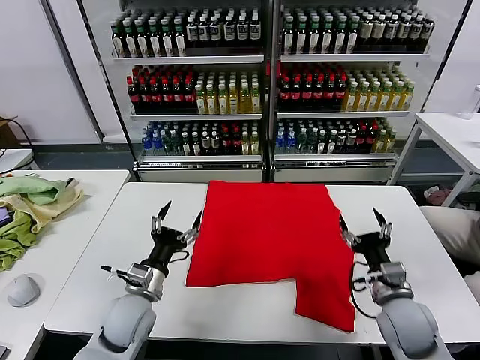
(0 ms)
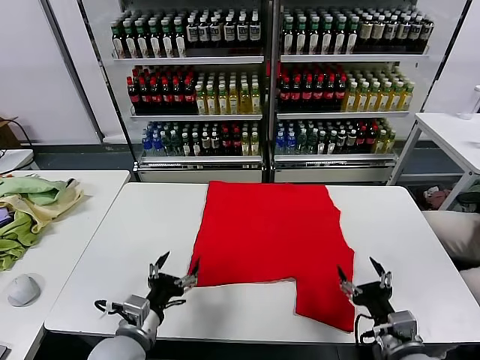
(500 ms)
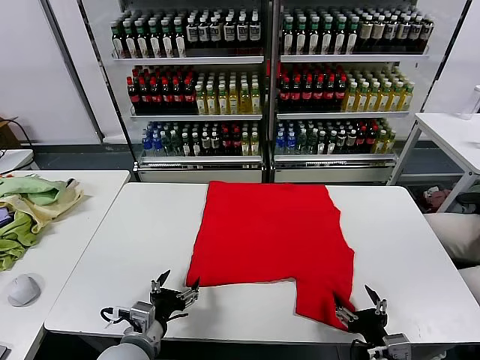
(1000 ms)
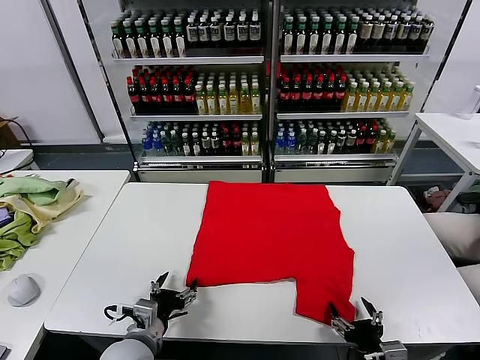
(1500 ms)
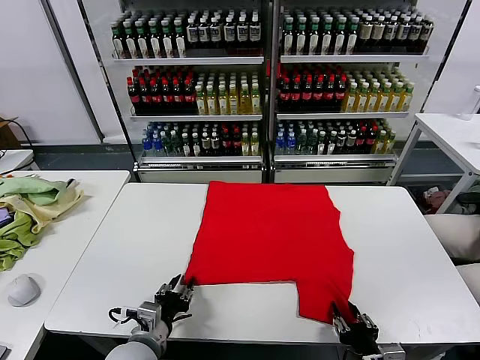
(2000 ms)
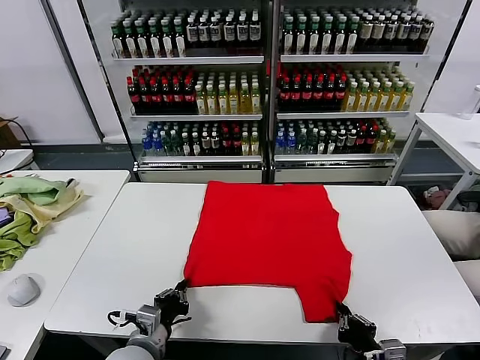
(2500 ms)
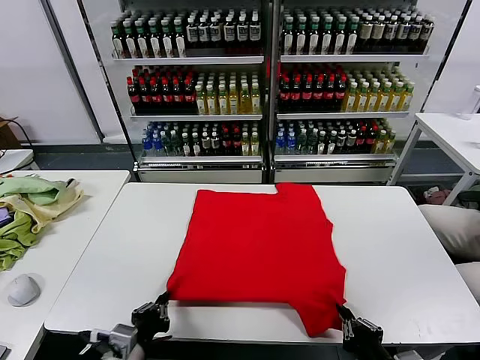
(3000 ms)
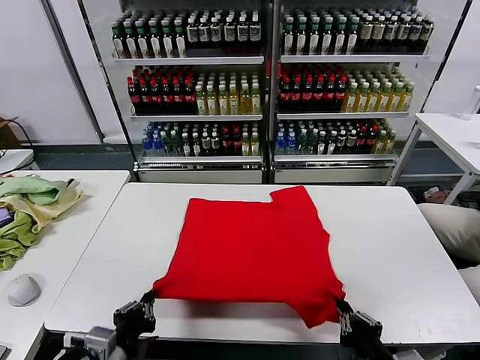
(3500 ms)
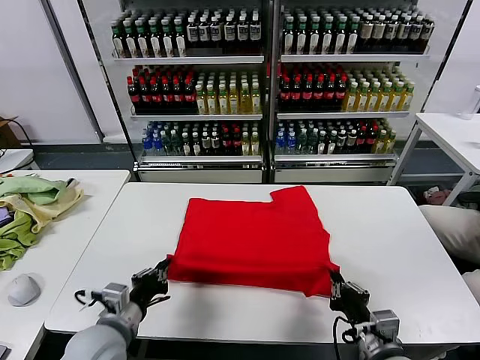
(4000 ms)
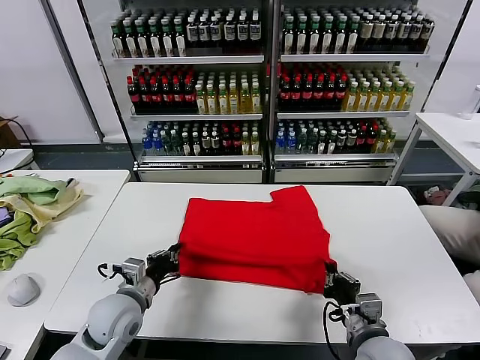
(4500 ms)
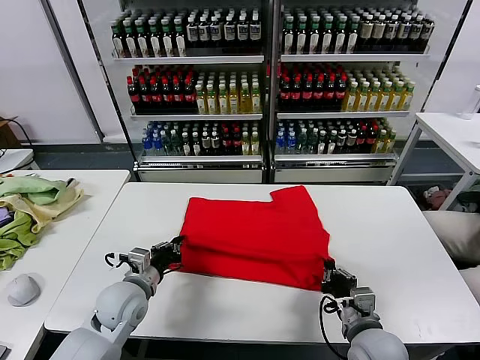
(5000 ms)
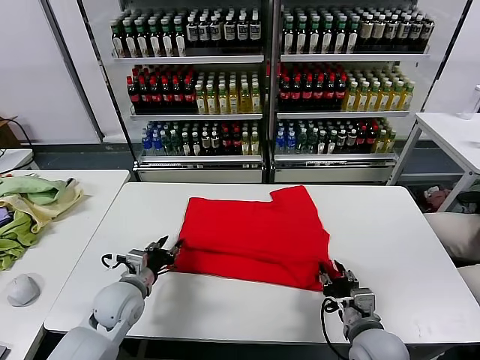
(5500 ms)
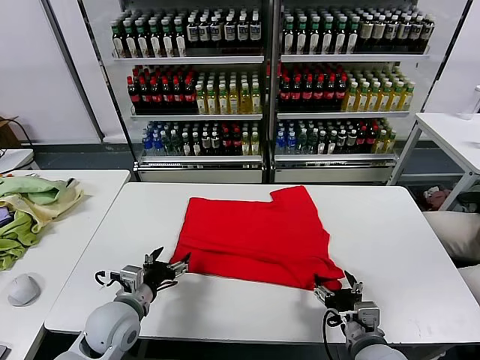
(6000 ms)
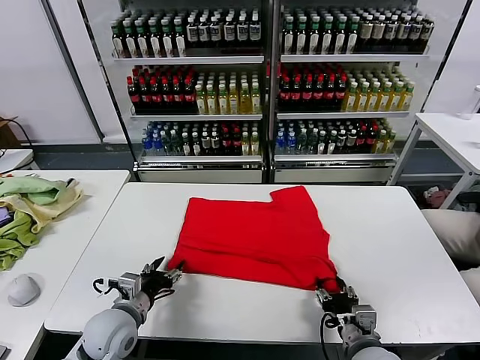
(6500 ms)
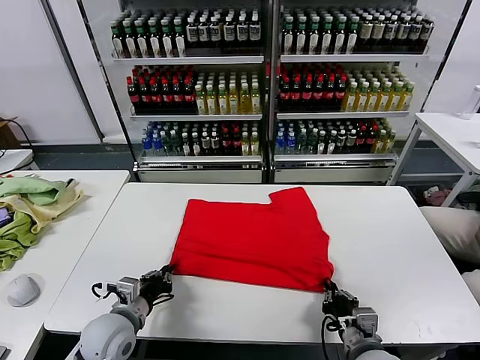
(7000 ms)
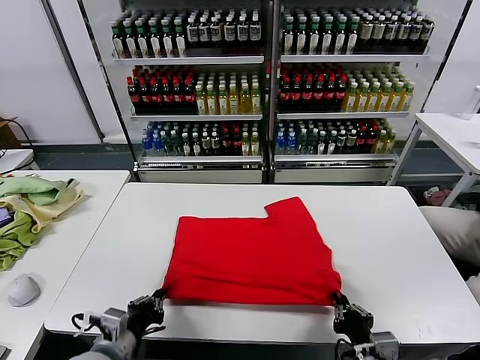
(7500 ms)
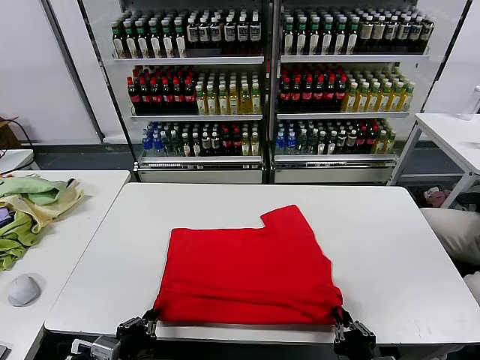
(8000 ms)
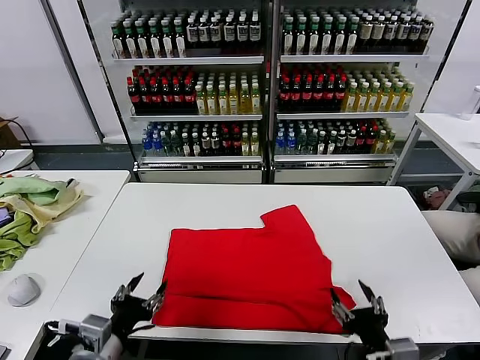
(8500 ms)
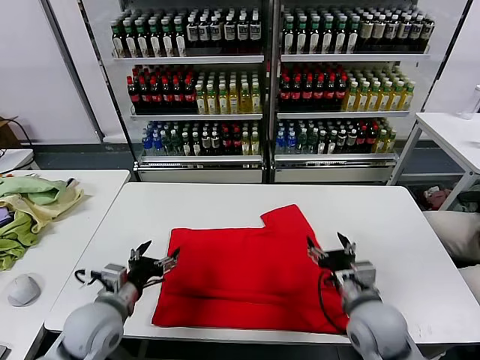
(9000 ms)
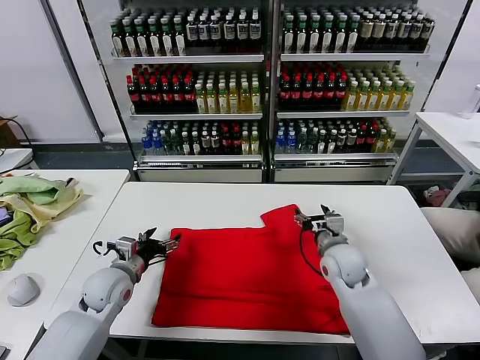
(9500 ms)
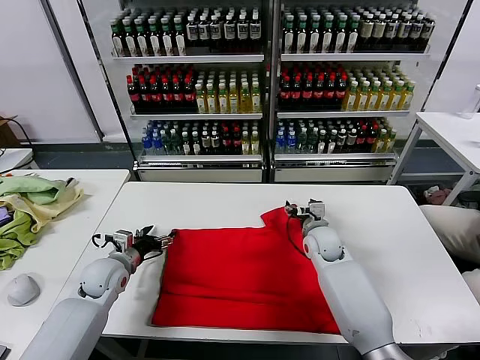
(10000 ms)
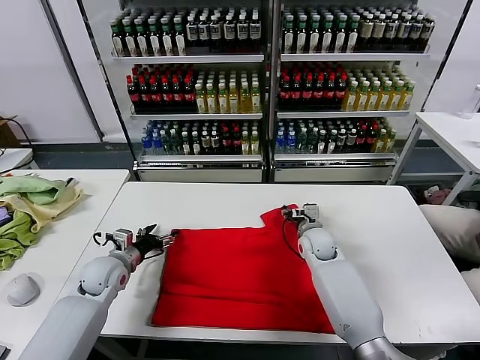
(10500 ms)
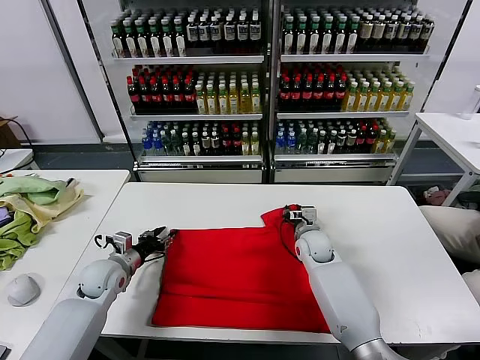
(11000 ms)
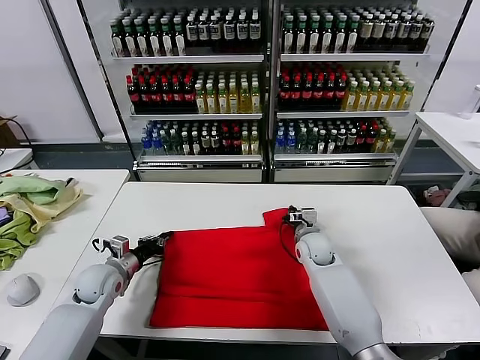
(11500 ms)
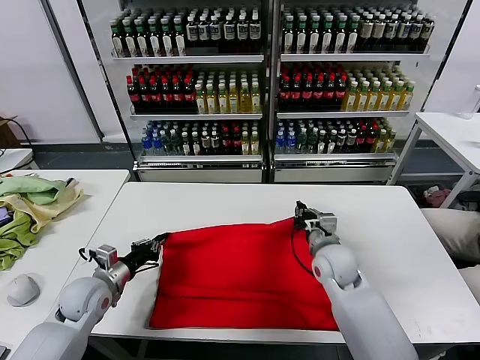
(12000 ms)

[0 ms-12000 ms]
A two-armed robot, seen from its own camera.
Task of the whole recording: fold and organize the clothes.
Step, 0 ms to 2500 ms: use both grippers simultaneously to clamp the lower edge of the clothing fabric.
Step, 3000 ms to 5500 ms: use both grippers to drag the lower edge of the fabric forward and fold it over the upper edge.
Step, 6000 ms to 8000 ms: Drag the clothes downward with both gripper.
Step, 8500 ms to 11000 ms: use both grippers simultaneously to clamp the upper edge of the clothing fabric.
2000 ms to 4000 ms: The right gripper goes some 10 cm forward and upward; the left gripper shifts roughly 5 cm upward, goes backward and returns, about 5 cm each way, and closes its fingers.
4000 ms to 6000 ms: The right gripper opens up; the left gripper shifts some 5 cm forward, and opens.
6000 ms to 8000 ms: The two grippers go some 15 cm backward. The right gripper closes up, while the left gripper closes.
8000 ms to 10000 ms: Both grippers travel together forward, approximately 35 cm. The right gripper opens, while the left gripper opens its fingers.
10000 ms to 12000 ms: The left gripper heads backward, covering about 5 cm, and closes; the right gripper is displaced backward by approximately 10 cm, and closes its fingers.

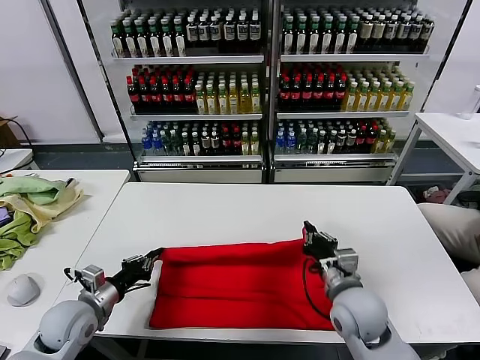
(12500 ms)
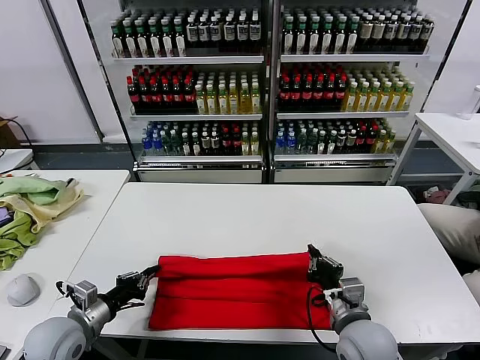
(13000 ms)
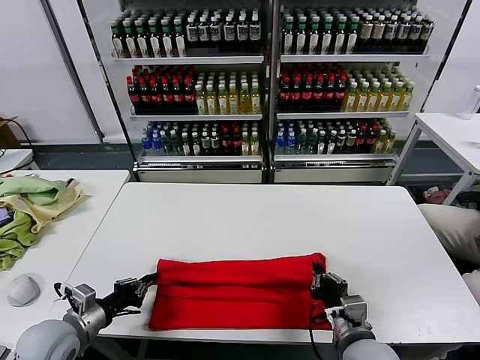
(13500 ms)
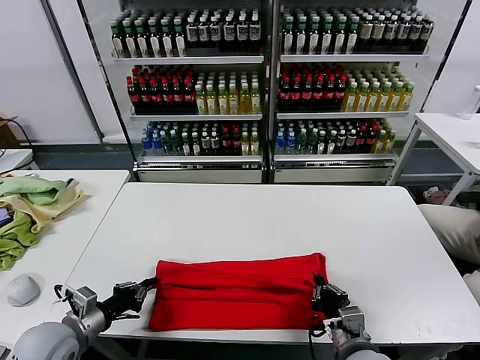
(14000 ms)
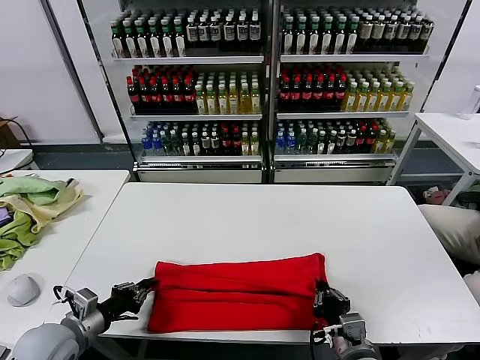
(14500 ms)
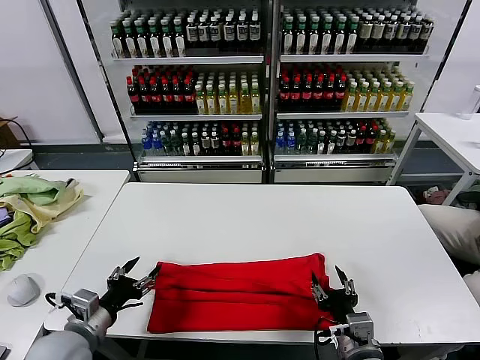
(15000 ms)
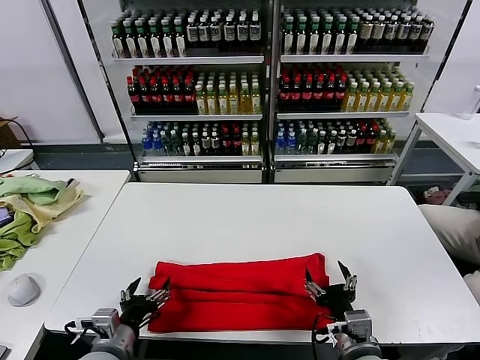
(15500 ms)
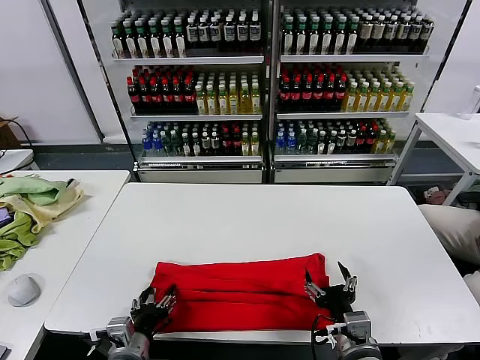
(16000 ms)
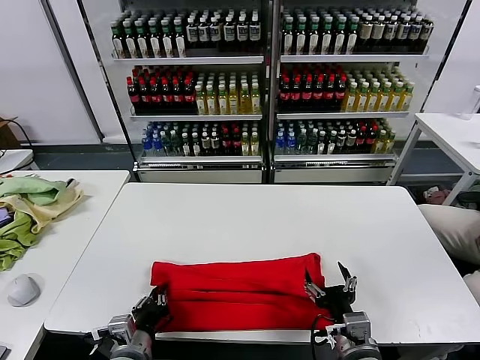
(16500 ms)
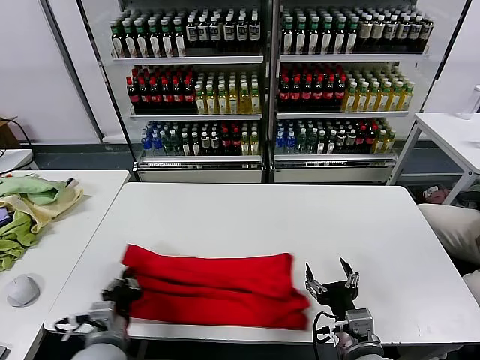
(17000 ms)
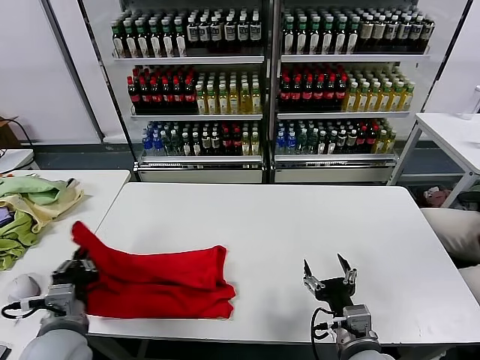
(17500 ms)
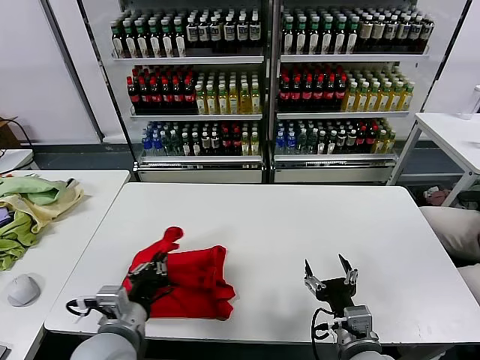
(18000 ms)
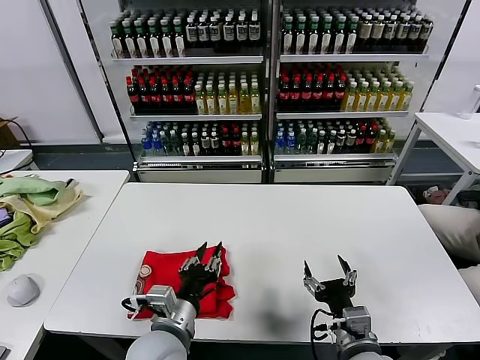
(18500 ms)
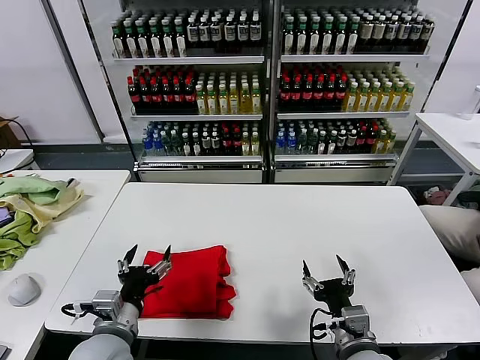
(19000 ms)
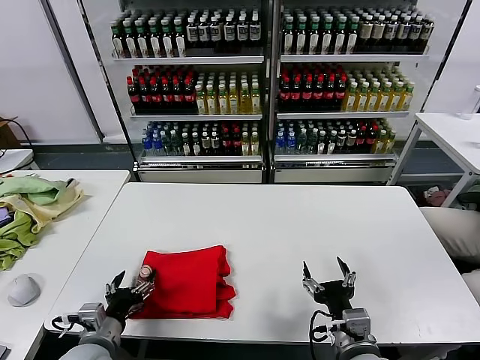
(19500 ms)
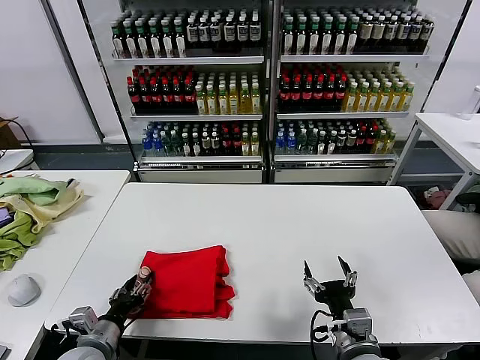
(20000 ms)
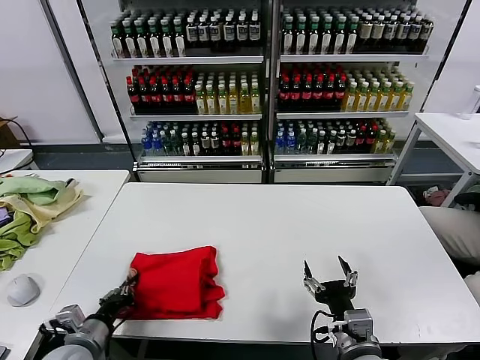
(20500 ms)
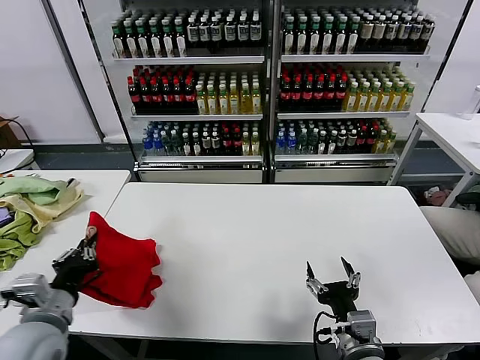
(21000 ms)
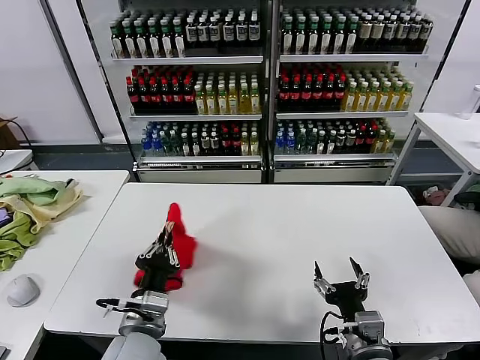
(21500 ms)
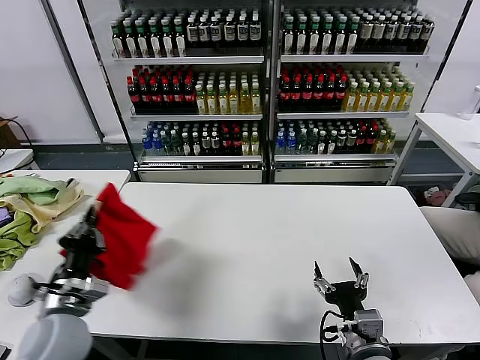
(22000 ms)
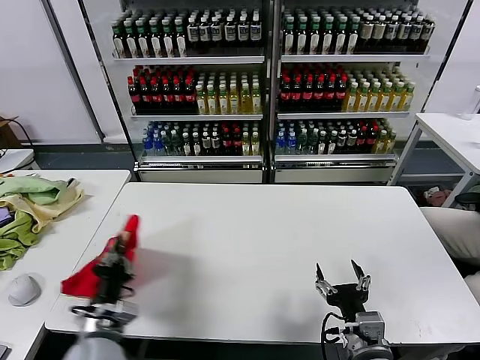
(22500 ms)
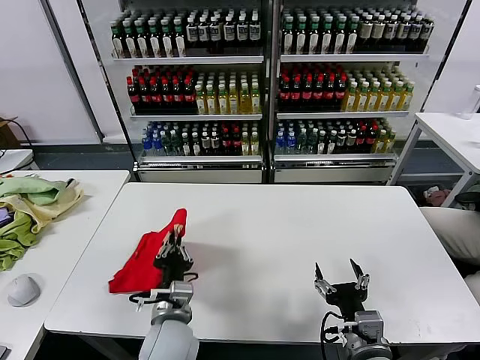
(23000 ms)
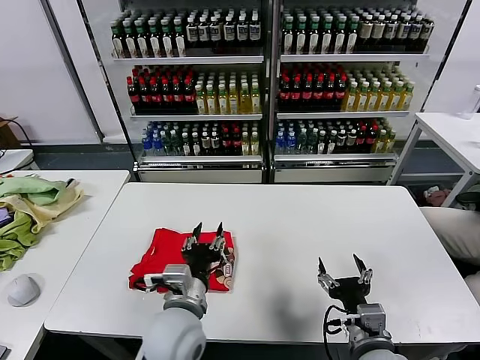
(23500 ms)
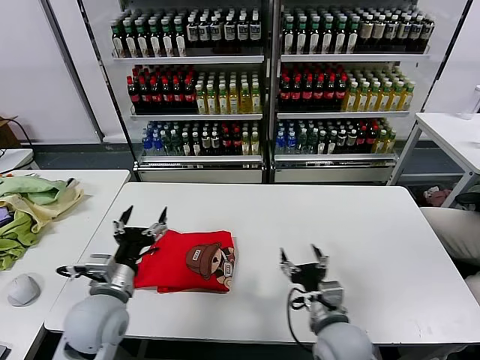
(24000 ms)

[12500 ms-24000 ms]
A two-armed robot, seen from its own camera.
Task of the whole recording: fold and organize the clothes.
Step, 12500 ms to 14500 ms: use both grippers to drag the upper edge of the fabric backward and fold it over the lower edge.
Step, 15000 ms to 16500 ms: use the left gripper to clamp the left edge of the fabric.
Step, 17000 ms to 18500 ms: use the left gripper to drag the left edge of the fabric to the left and folds it over the right edge.
Step, 19000 ms to 23000 ms: Flip the folded clothes over with left gripper.
12500 ms to 14500 ms: The left gripper travels backward by approximately 5 cm. The right gripper is displaced backward by roughly 10 cm.
14500 ms to 16500 ms: The right gripper opens its fingers, while the left gripper is displaced to the right by approximately 15 cm, and opens, then closes again.
16500 ms to 18500 ms: The left gripper heads to the right and upward, covering about 10 cm.
18500 ms to 20000 ms: The left gripper goes some 20 cm to the left and downward.
20000 ms to 22000 ms: The left gripper travels upward by about 10 cm, reaches approximately 15 cm to the right, then returns, and closes its fingers.
22000 ms to 24000 ms: The right gripper goes roughly 5 cm forward. The left gripper travels to the right and back again, roughly 20 cm each way, and opens.

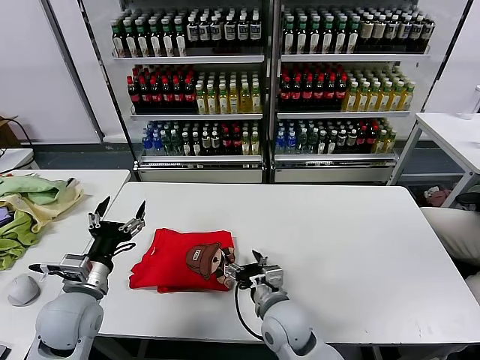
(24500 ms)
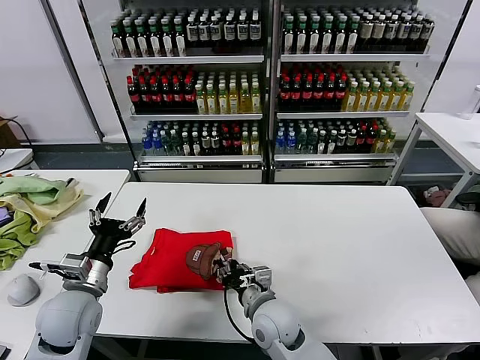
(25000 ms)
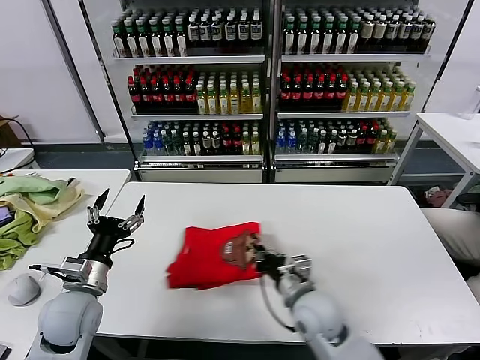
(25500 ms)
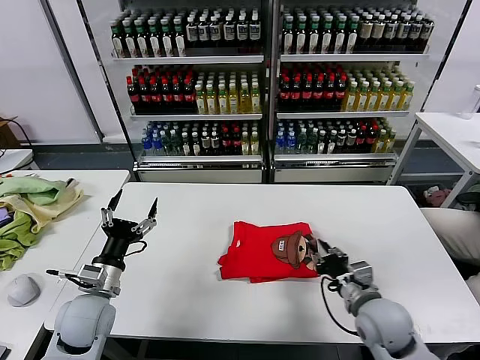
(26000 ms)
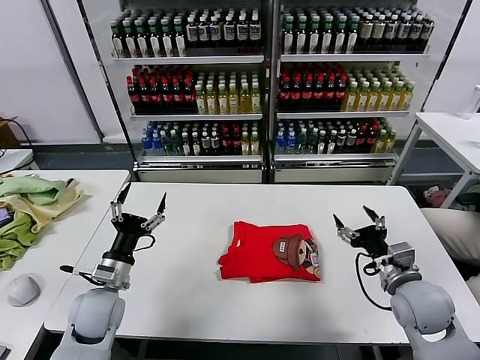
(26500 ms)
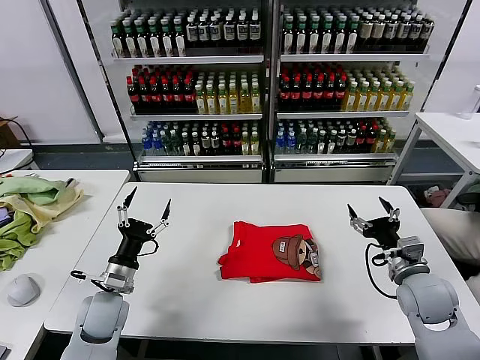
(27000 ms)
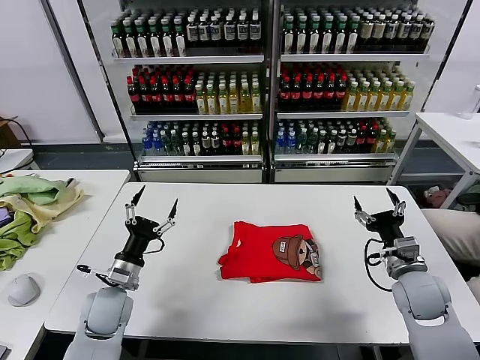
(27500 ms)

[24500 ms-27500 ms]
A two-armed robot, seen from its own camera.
Task of the whole recording: fold and organize the clothes.
Step, 24500 ms to 26000 ms: Drag the clothes to the center of the table.
24500 ms to 26000 ms: The right gripper goes approximately 20 cm to the right, and closes.
26000 ms to 27500 ms: The left gripper moves roughly 5 cm. Meanwhile the right gripper is displaced to the right by approximately 10 cm, and opens.
